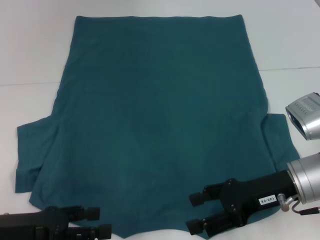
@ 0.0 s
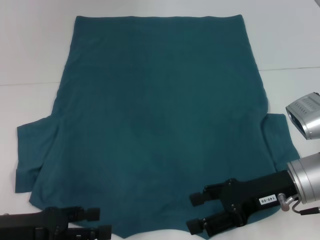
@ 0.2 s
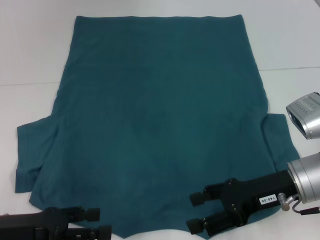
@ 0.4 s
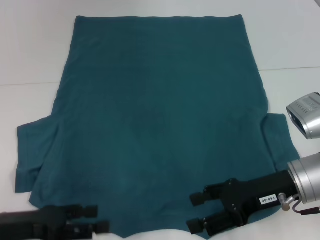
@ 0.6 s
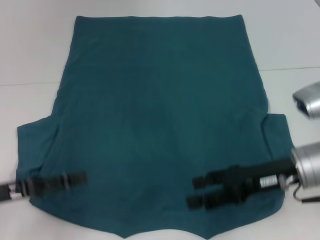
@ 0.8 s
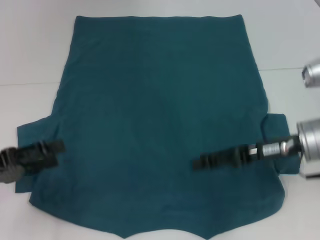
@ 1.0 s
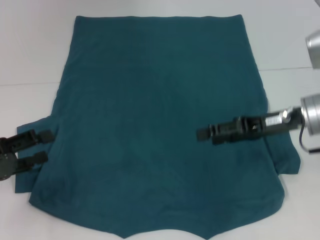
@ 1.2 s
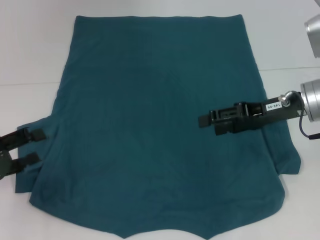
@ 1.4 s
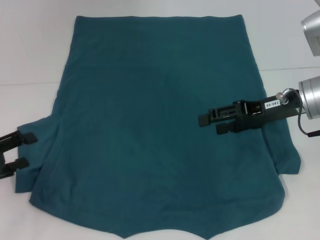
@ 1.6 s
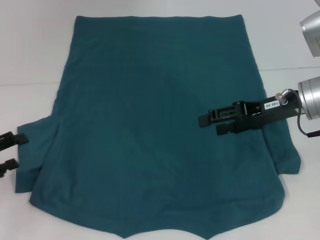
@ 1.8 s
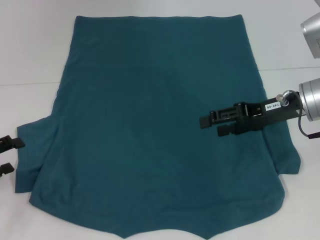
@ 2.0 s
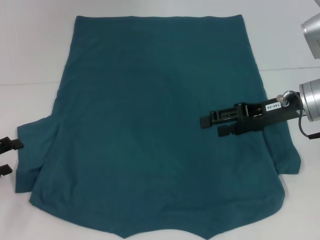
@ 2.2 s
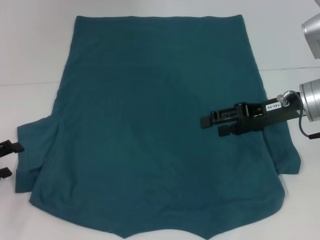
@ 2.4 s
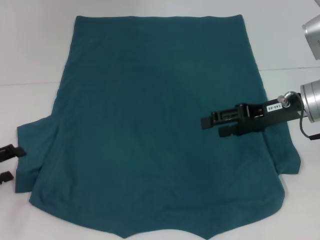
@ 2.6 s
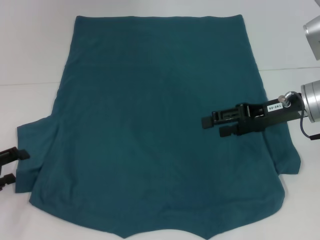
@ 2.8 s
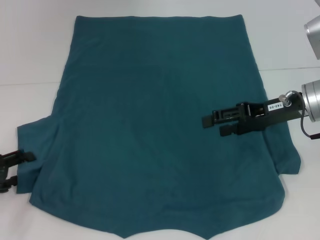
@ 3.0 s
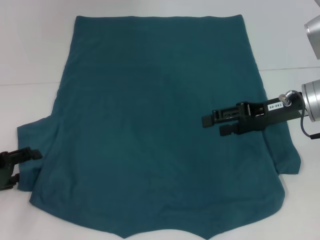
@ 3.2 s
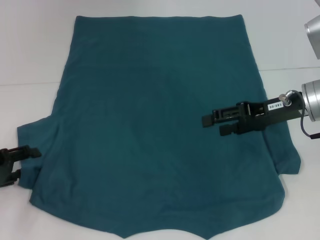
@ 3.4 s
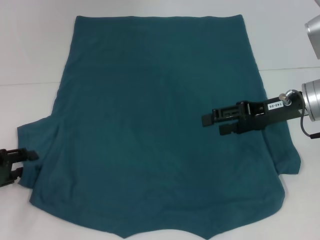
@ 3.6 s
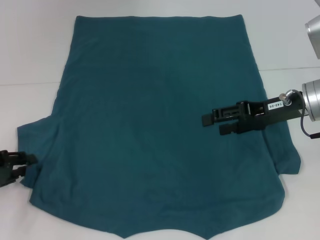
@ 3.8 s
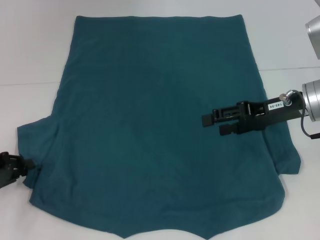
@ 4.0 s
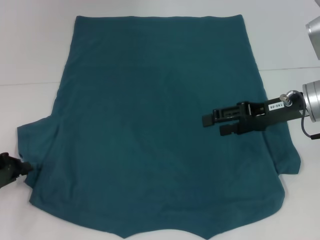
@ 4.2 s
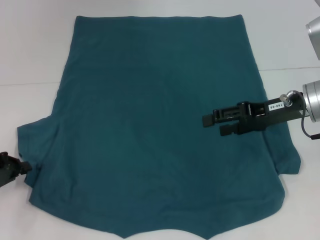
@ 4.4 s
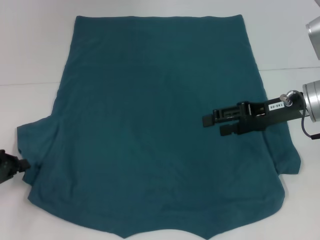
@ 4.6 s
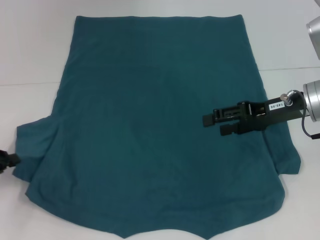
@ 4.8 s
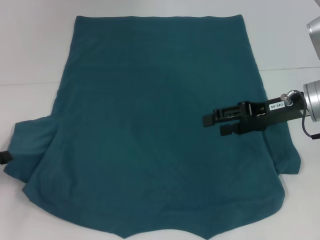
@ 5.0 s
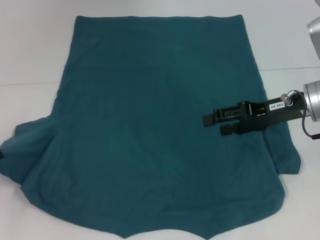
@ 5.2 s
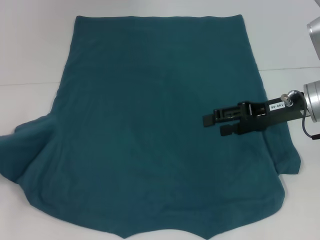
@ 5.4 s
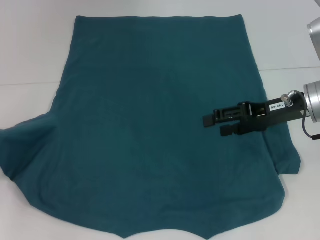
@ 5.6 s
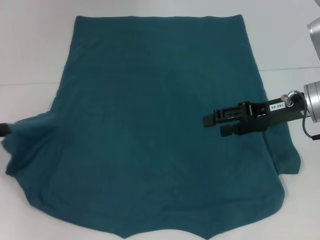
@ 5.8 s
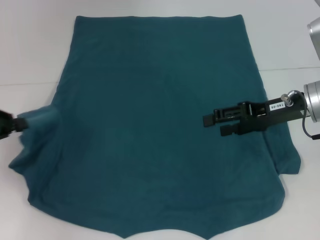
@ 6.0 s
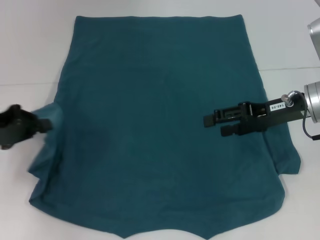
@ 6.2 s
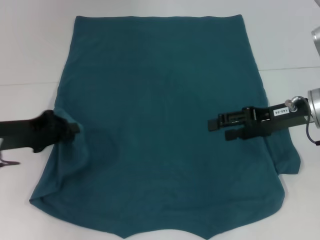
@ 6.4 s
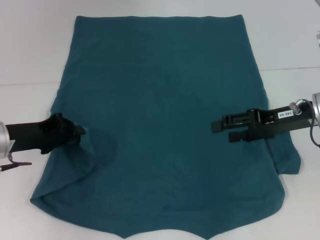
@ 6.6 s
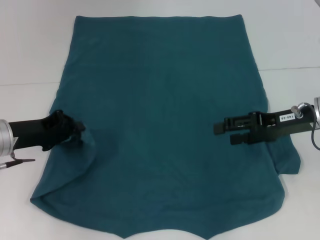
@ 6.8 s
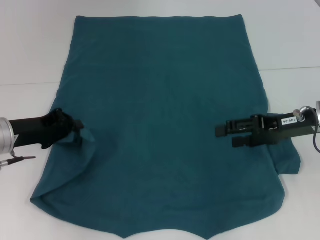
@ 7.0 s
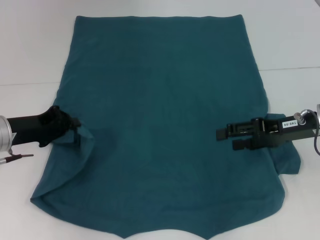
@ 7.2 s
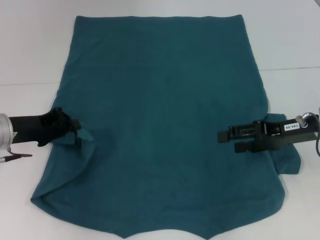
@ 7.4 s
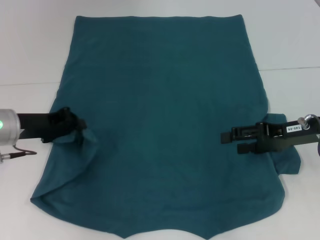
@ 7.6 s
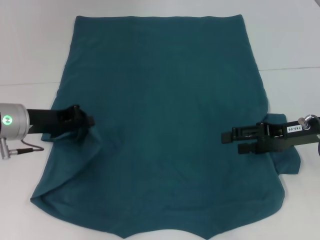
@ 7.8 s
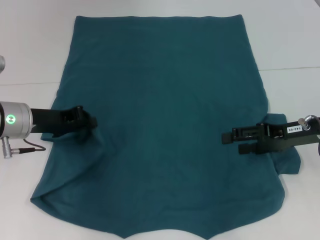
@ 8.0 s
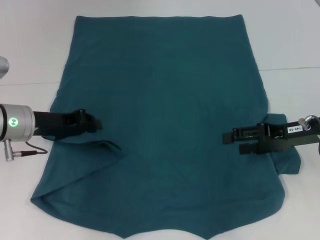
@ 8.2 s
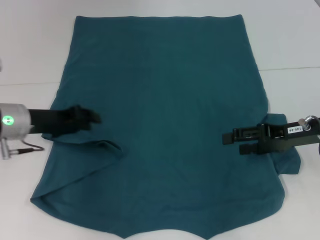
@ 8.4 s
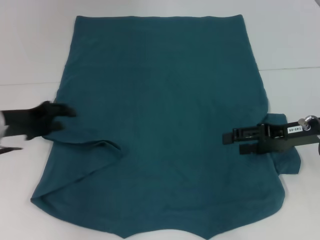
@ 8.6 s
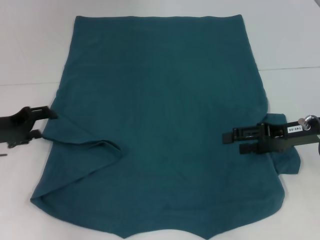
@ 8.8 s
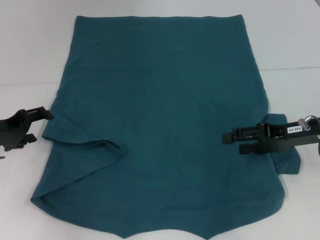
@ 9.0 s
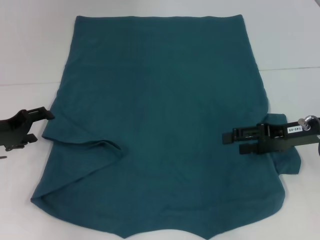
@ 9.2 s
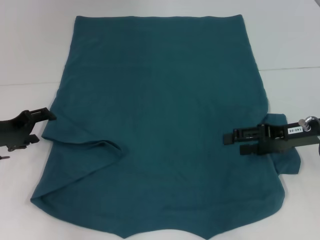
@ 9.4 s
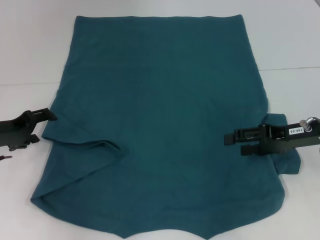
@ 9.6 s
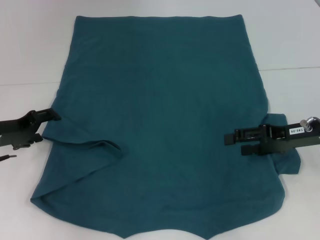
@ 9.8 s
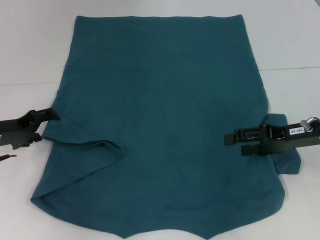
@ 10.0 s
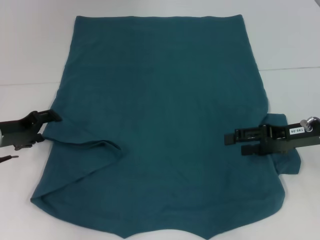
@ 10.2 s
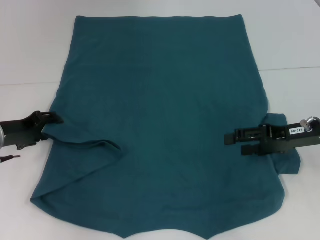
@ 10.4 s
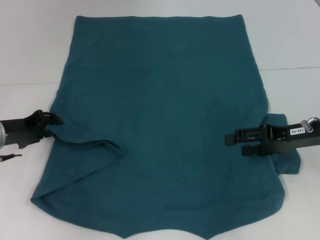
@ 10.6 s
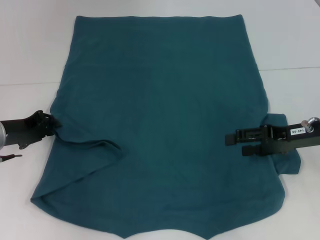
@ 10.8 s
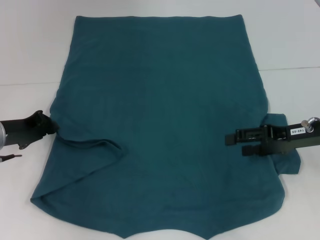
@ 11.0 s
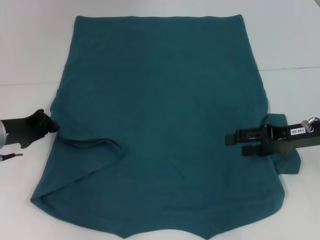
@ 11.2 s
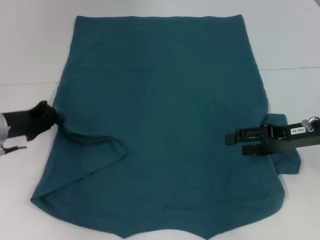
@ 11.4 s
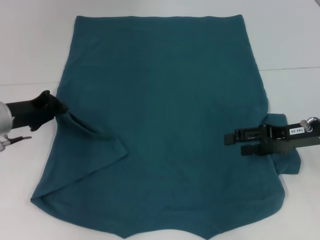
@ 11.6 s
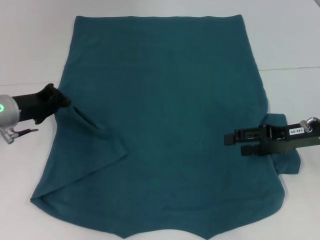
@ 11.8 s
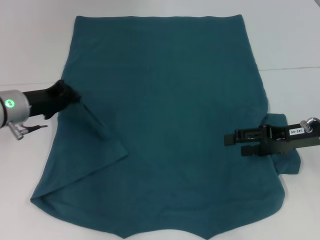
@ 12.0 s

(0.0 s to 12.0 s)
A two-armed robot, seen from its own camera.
0.0 s - 1.6 s: The right gripper shifts some 10 cm forward and upward. Meanwhile the left gripper shifts about 10 cm to the left.
1.6 s - 3.0 s: The grippers move only a little.
3.0 s - 4.4 s: The left gripper closes up.
4.4 s - 6.0 s: The left gripper goes some 10 cm upward.
6.0 s - 7.6 s: The left gripper travels to the right by about 10 cm.
7.6 s - 9.0 s: The left gripper goes roughly 5 cm to the left, and opens up.
9.0 s - 10.4 s: The grippers stay close to where they were, moving slightly.
10.4 s - 12.0 s: The left gripper shifts by about 5 cm, and closes its fingers.

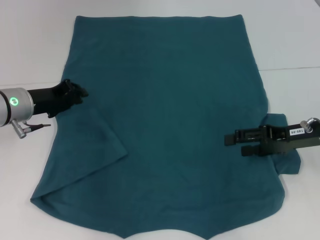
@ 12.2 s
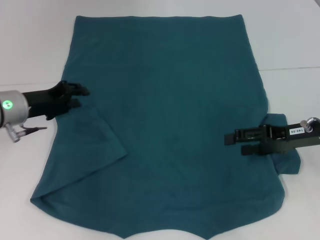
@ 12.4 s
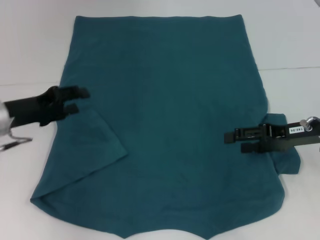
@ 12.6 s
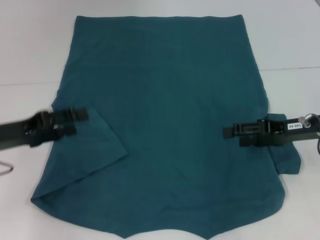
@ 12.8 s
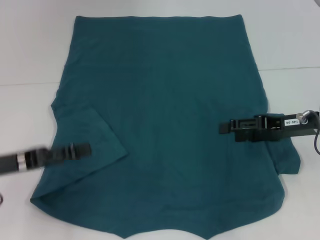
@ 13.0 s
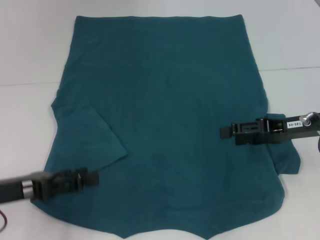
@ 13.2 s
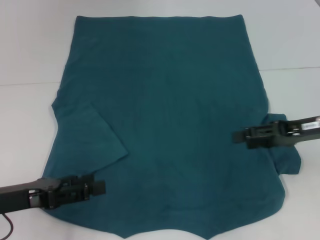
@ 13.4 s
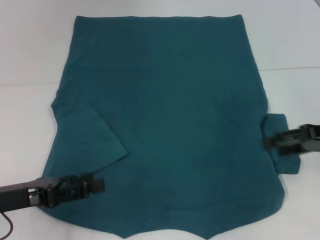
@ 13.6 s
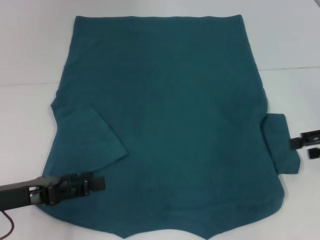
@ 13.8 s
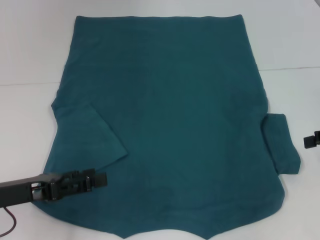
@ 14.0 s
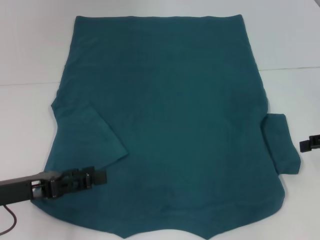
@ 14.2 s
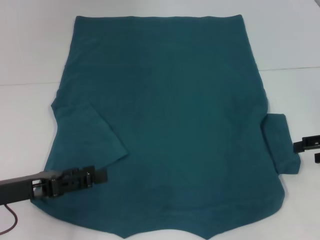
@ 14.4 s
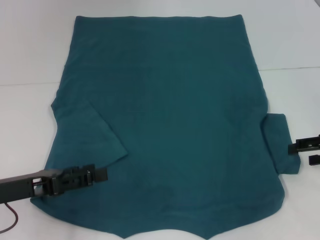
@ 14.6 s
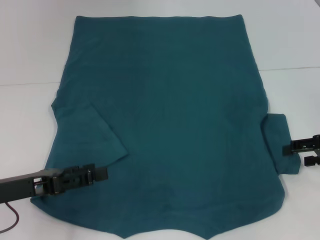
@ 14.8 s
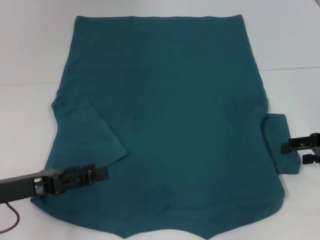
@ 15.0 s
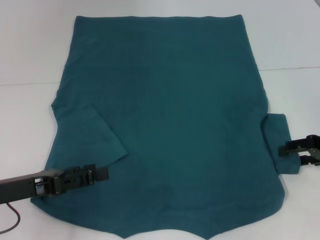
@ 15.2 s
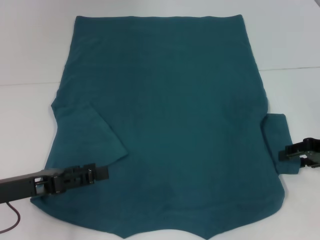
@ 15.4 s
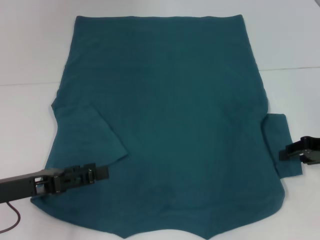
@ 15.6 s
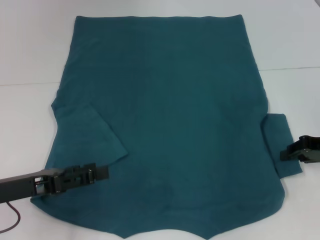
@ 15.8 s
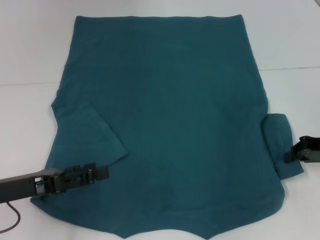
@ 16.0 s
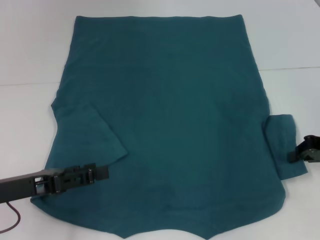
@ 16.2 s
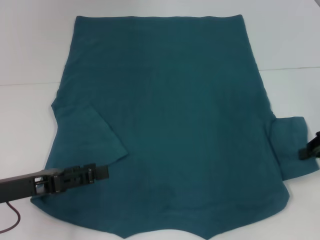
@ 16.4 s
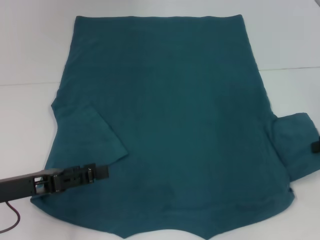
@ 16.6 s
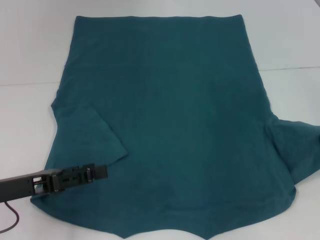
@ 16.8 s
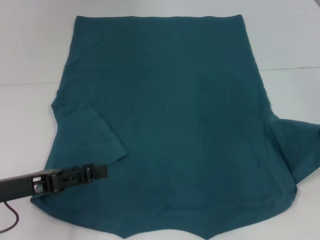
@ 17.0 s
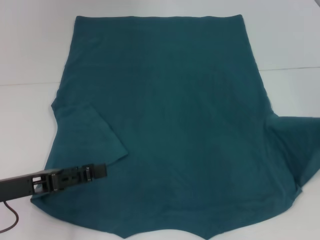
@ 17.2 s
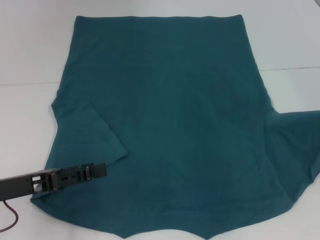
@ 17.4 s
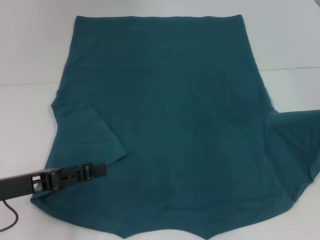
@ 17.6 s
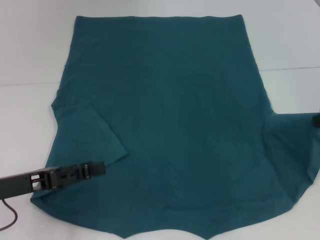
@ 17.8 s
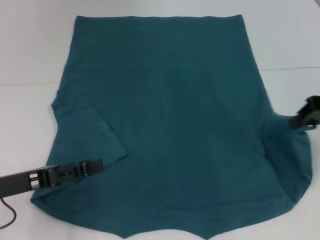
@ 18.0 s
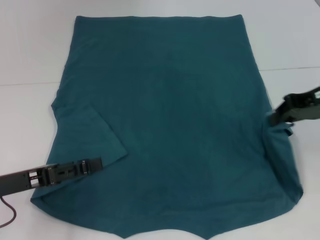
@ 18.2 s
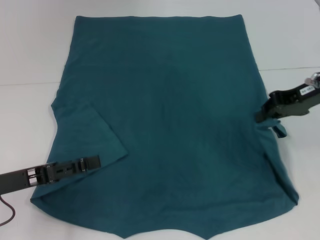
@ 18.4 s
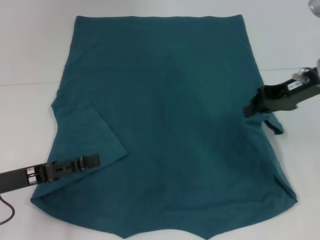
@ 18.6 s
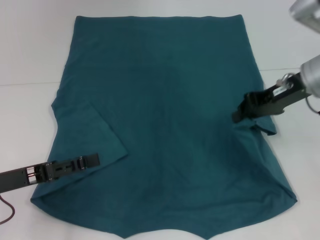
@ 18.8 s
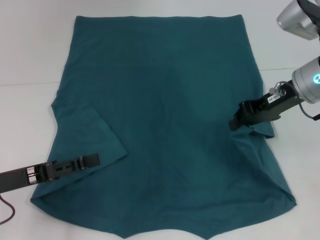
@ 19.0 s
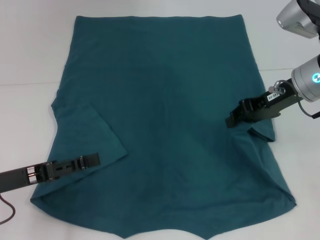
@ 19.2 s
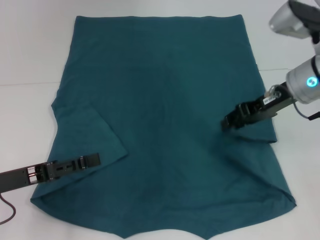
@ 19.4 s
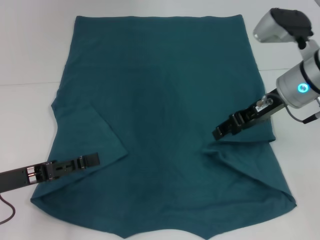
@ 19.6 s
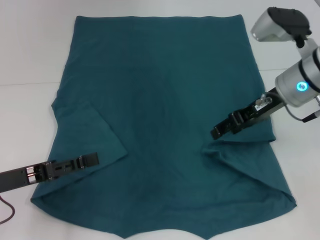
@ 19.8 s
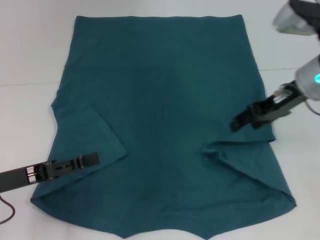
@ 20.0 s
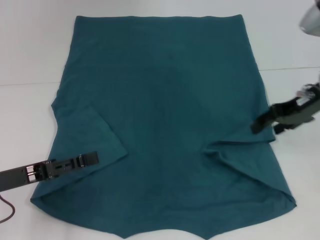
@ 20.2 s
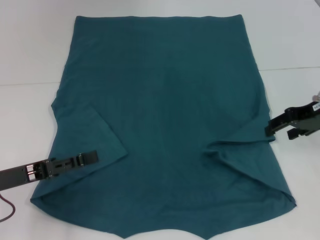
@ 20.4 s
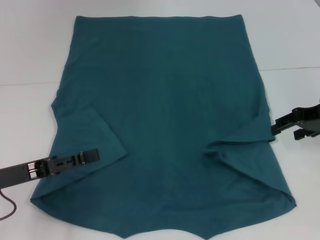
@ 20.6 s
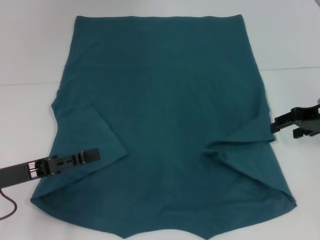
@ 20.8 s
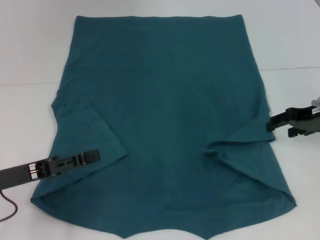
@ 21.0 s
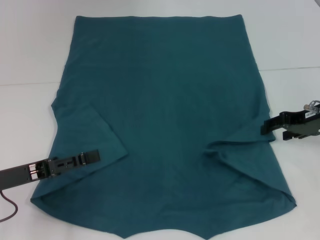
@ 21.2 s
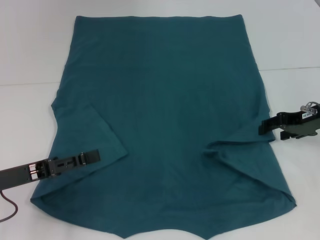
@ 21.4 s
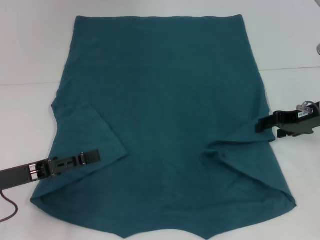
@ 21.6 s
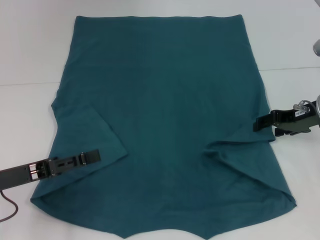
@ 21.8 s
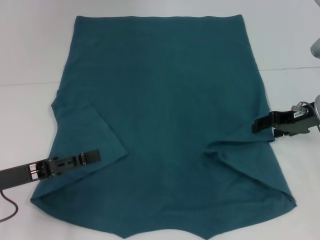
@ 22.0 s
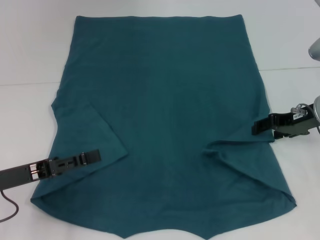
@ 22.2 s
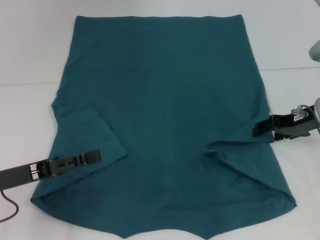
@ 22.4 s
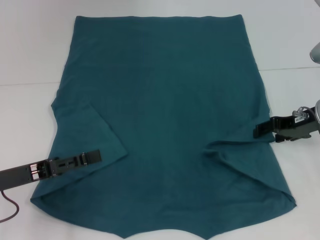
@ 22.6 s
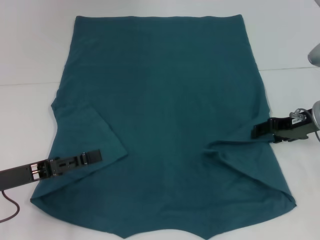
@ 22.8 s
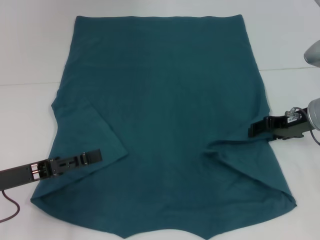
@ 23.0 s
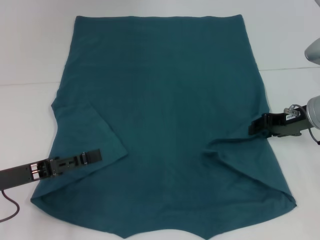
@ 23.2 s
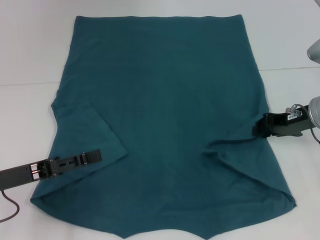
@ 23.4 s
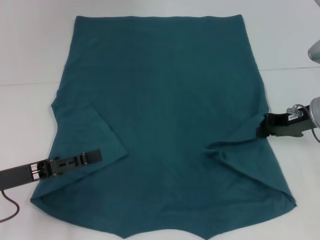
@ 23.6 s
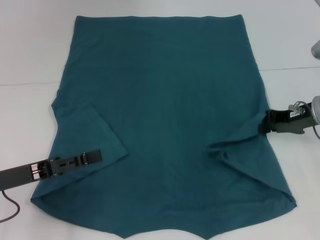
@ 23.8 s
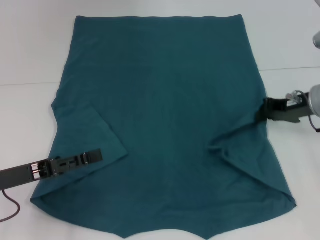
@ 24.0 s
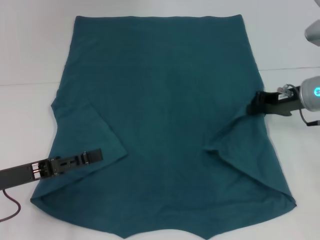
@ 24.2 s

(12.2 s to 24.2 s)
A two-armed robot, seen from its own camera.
12.2 s - 13.8 s: The left gripper goes about 15 cm backward, and opens up. The right gripper travels to the right by approximately 10 cm.
13.8 s - 15.2 s: The right gripper shifts by roughly 5 cm.
15.2 s - 16.6 s: The right gripper closes up.
16.6 s - 18.2 s: The right gripper travels to the left by about 10 cm.
18.2 s - 19.8 s: The right gripper goes about 10 cm to the left, and opens its fingers.
19.8 s - 21.2 s: The right gripper travels to the right by about 10 cm.
21.2 s - 22.6 s: There are only small adjustments of the grippers.
22.6 s - 24.2 s: The right gripper closes up.
